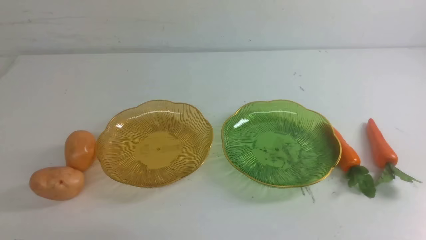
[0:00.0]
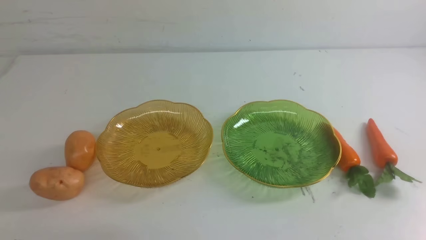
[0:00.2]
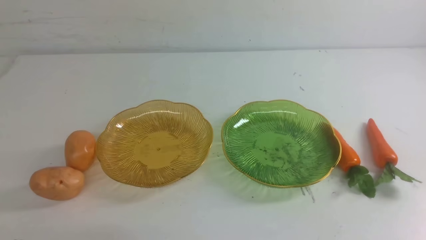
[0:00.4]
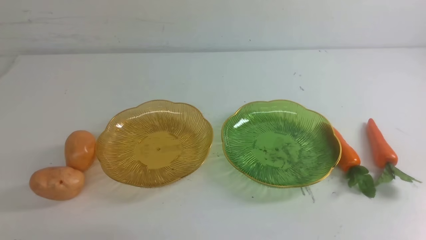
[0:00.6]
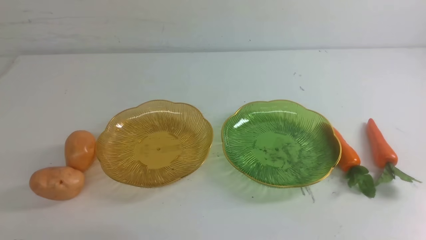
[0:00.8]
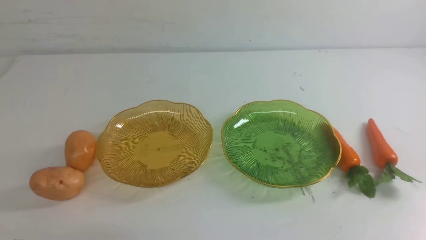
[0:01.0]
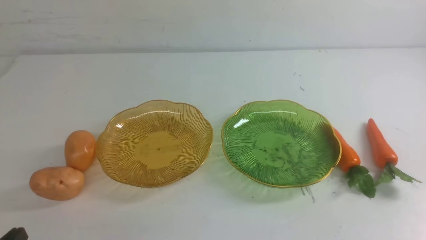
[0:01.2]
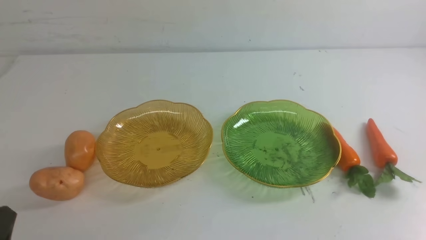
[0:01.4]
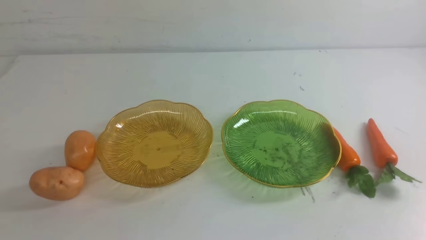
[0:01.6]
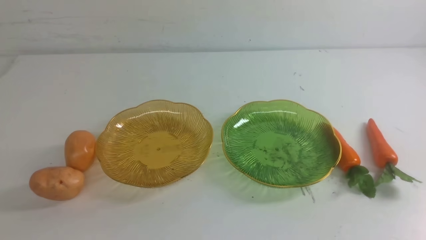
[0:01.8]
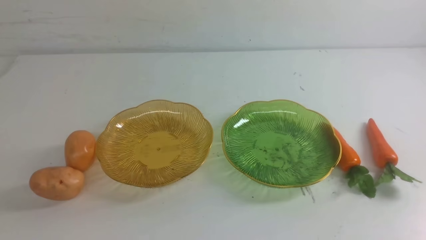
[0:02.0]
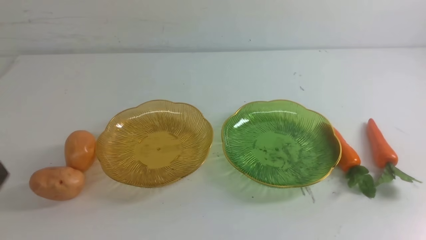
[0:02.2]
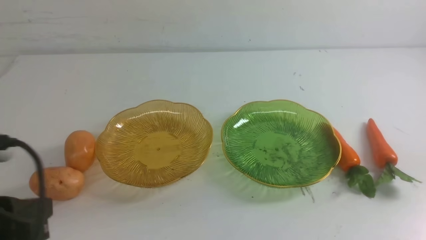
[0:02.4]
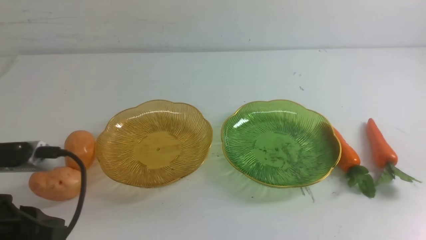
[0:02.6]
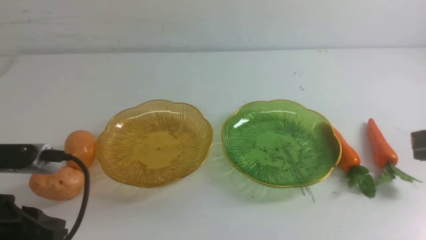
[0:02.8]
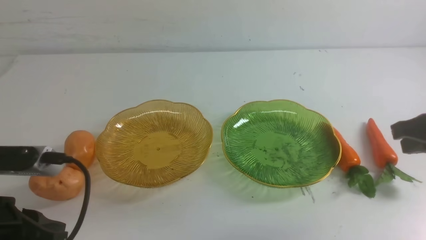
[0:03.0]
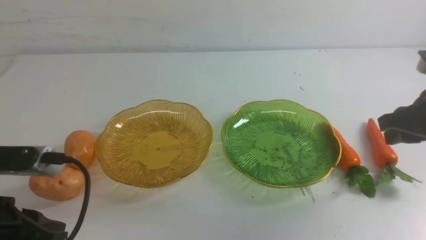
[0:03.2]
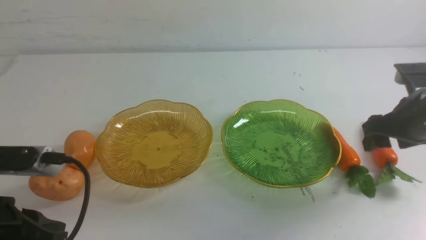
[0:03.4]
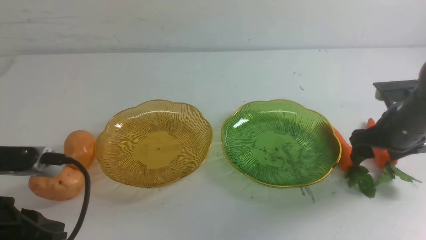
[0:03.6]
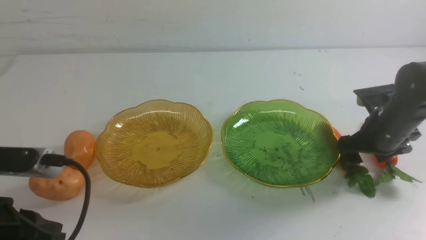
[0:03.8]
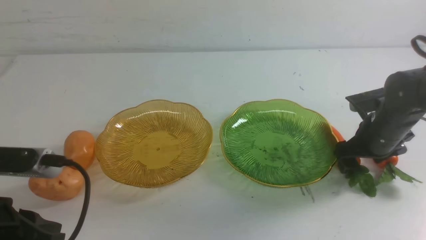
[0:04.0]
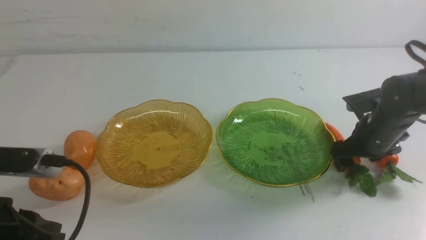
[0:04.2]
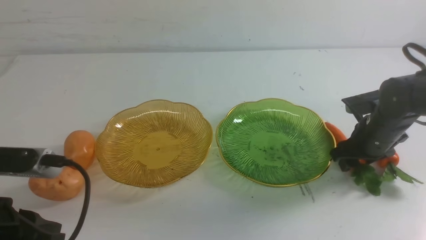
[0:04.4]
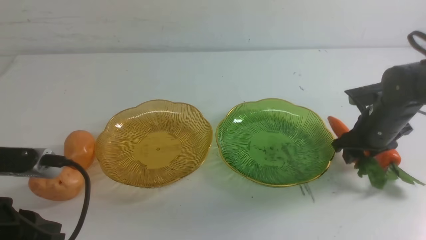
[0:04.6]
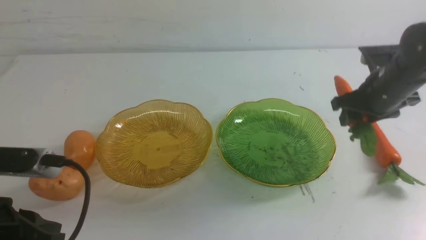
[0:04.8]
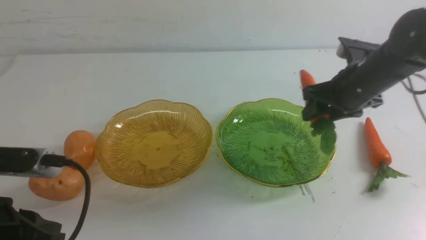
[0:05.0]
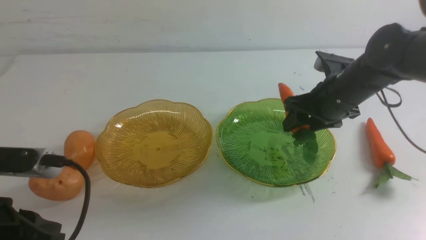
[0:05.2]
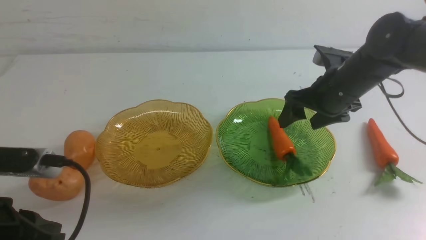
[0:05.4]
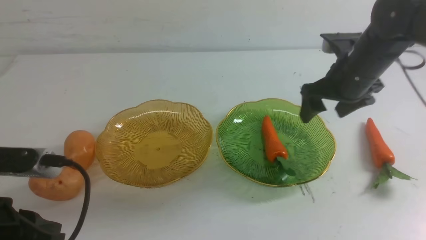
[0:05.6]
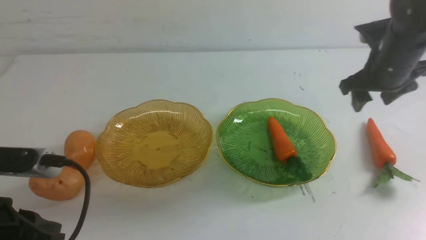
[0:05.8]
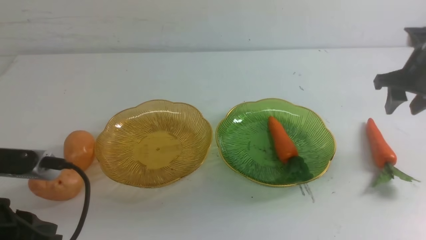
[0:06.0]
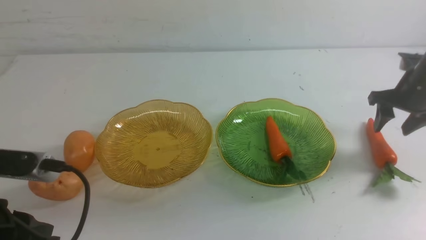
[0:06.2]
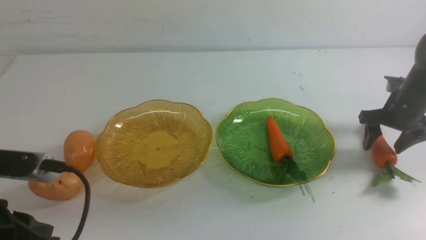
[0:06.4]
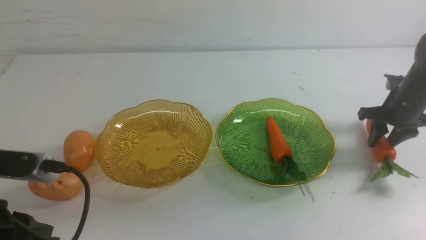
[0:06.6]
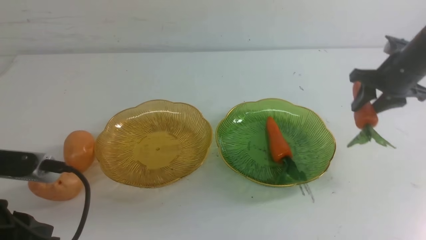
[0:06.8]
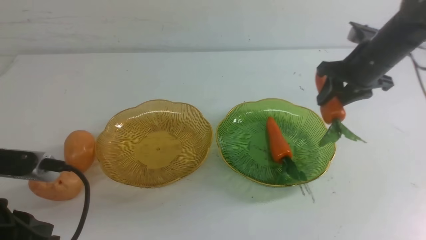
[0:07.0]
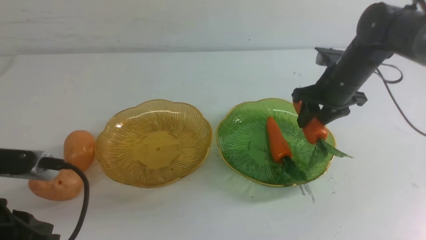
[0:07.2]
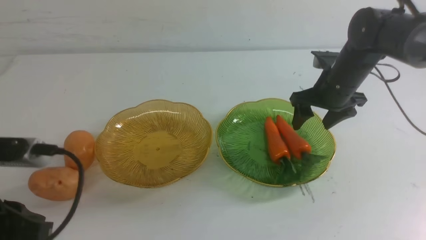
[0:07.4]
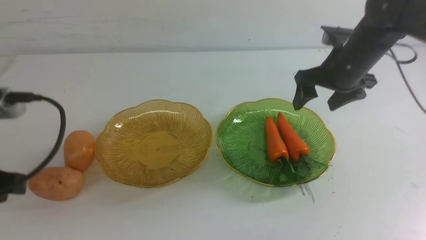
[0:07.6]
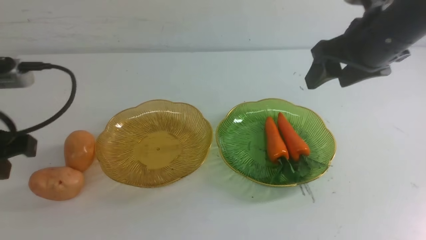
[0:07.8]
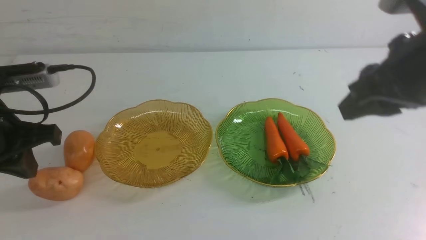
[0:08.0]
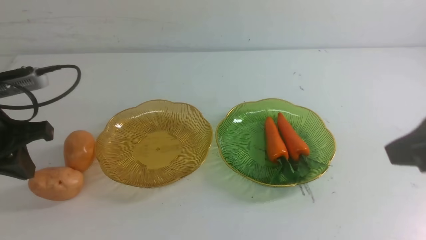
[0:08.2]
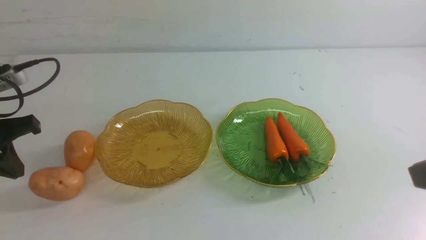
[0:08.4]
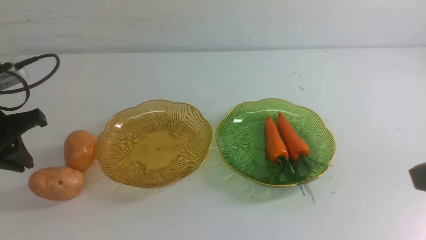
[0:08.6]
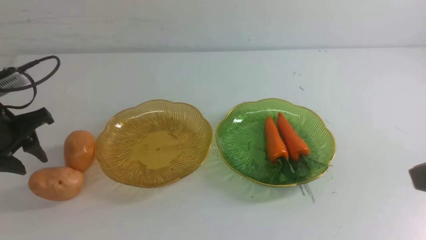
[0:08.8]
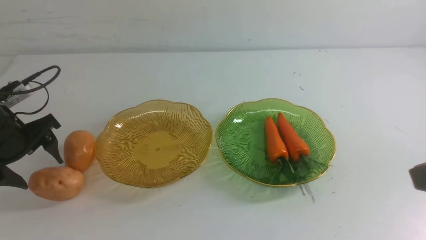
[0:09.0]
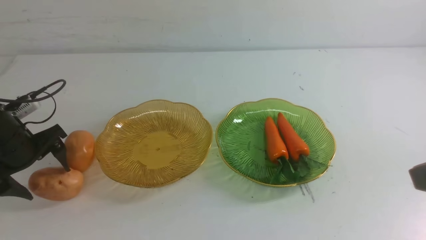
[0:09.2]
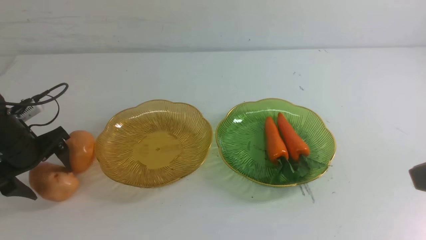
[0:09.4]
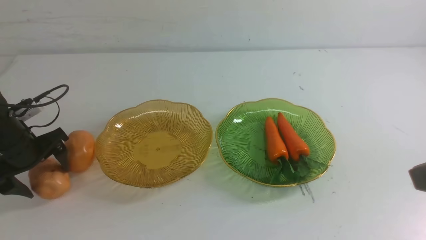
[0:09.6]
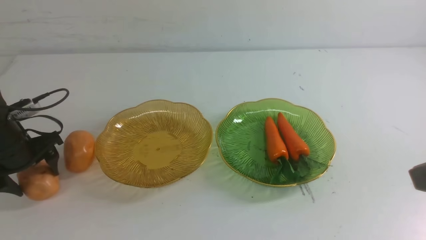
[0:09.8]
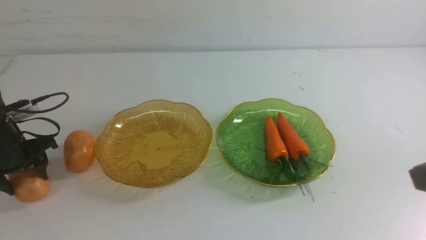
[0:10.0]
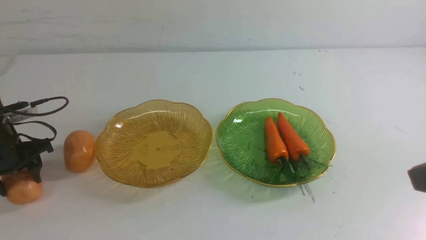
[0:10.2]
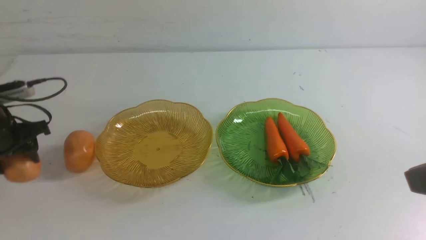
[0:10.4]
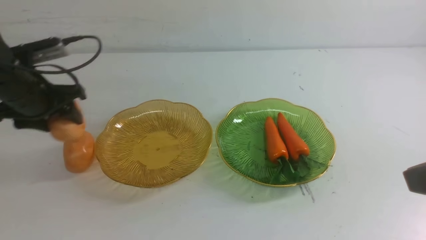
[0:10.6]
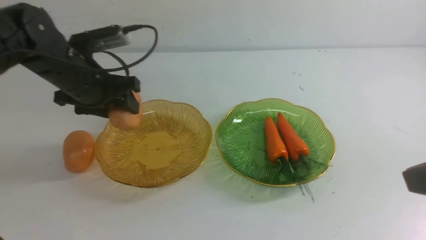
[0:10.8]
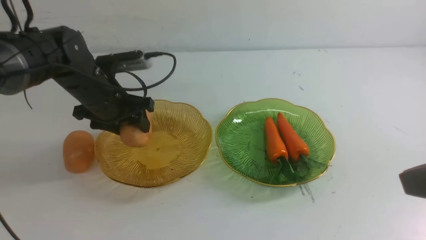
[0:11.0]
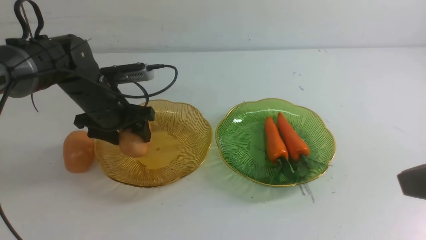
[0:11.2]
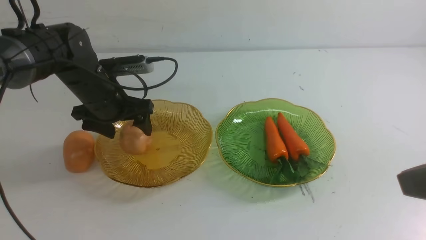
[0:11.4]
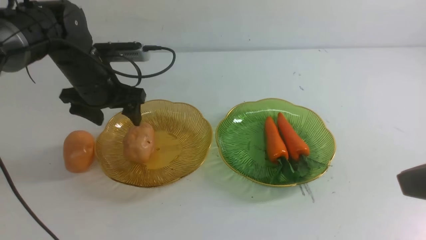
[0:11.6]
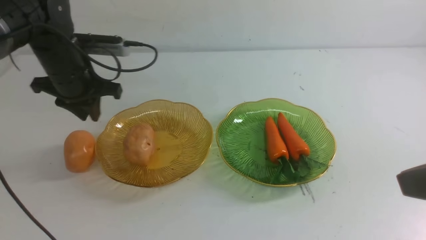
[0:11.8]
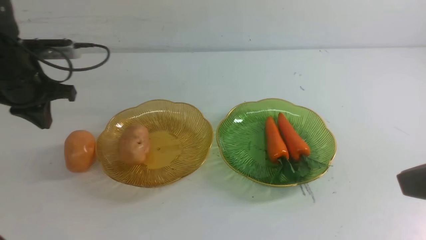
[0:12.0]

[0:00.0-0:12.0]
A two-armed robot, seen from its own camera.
Step, 0:00.0 to 0:07.2: use the right arm to grab a carrot and put it into the right plate.
0:01.6 to 0:03.0: The left gripper heads forward, covering about 10 cm. The right gripper is displaced forward and upward by about 20 cm.
0:03.0 to 0:04.4: The right gripper is displaced downward and forward by approximately 15 cm, and opens up.
0:04.4 to 0:06.0: The right gripper heads upward, covering about 10 cm.
0:06.0 to 0:07.6: The left gripper moves roughly 5 cm; the right gripper goes about 10 cm to the left.
0:07.6 to 0:09.0: The left gripper shifts approximately 20 cm forward, downward and to the left, and opens up. The right gripper is displaced backward by approximately 30 cm, and closes its fingers.
0:09.0 to 0:10.4: The left gripper changes place by roughly 5 cm.
0:10.4 to 0:12.0: The left gripper heads upward, forward and to the right, covering roughly 10 cm, and closes its fingers.

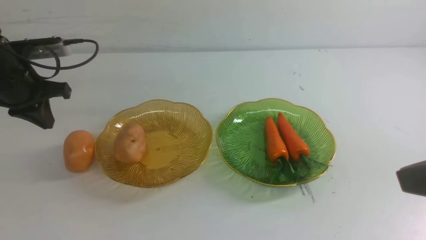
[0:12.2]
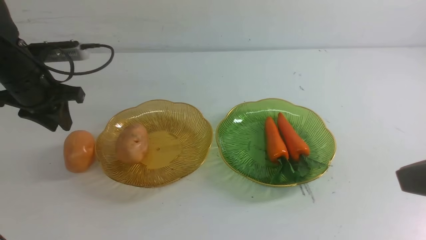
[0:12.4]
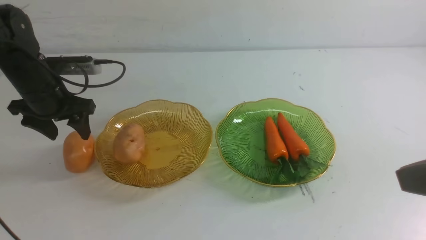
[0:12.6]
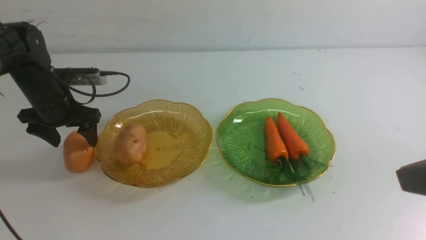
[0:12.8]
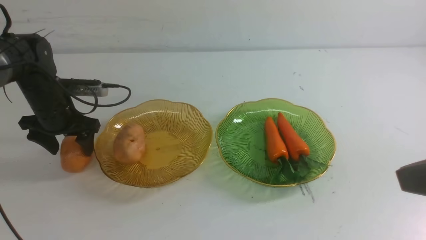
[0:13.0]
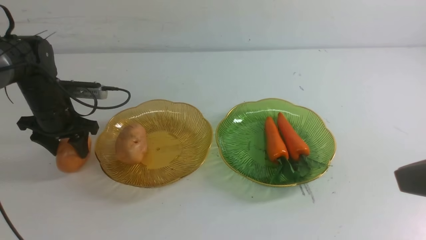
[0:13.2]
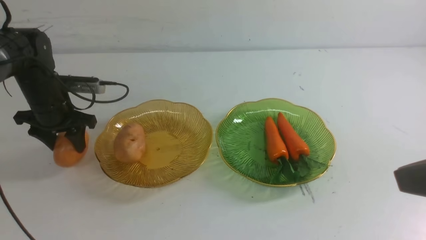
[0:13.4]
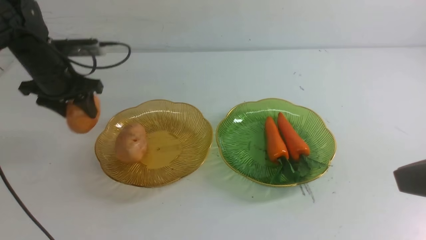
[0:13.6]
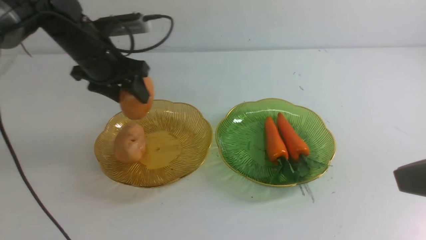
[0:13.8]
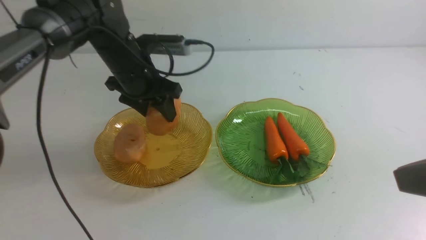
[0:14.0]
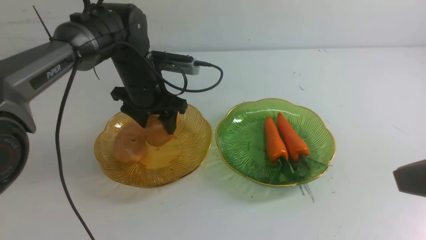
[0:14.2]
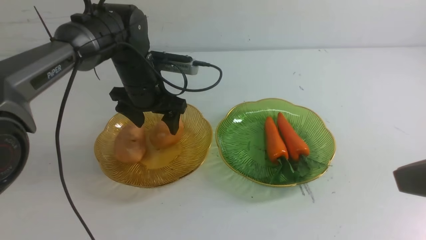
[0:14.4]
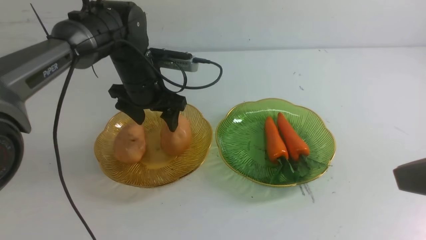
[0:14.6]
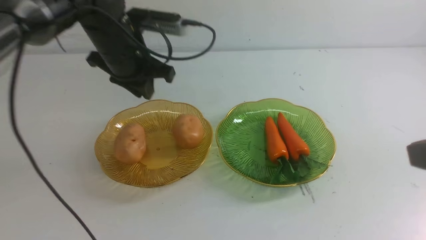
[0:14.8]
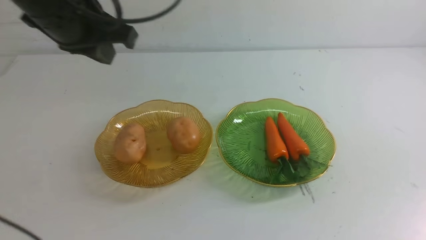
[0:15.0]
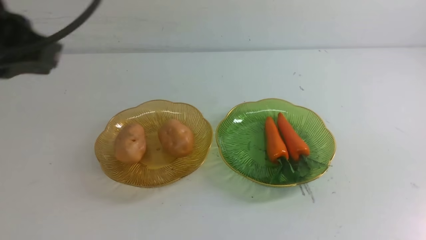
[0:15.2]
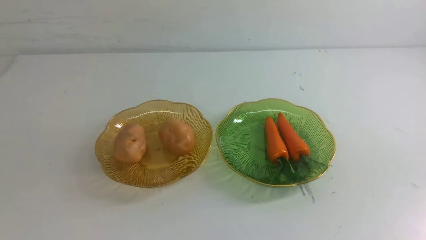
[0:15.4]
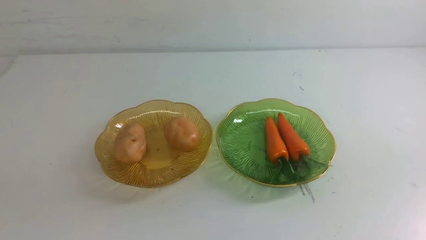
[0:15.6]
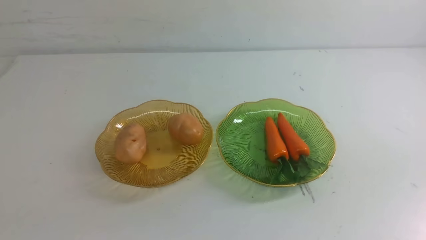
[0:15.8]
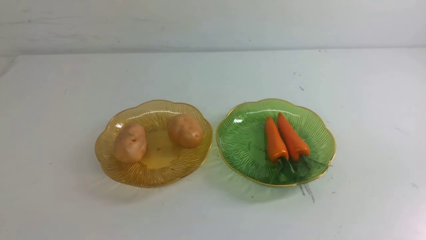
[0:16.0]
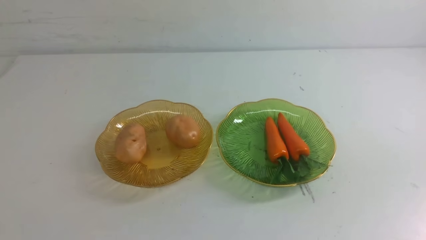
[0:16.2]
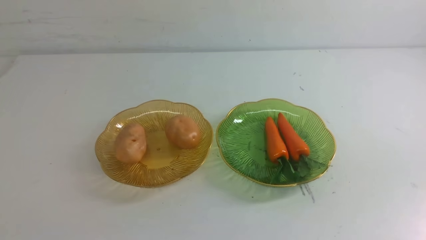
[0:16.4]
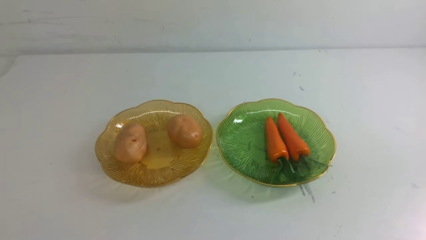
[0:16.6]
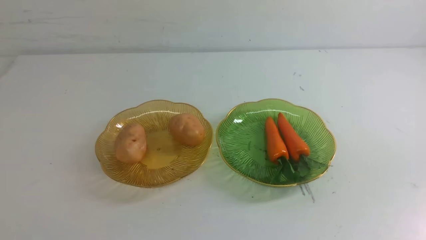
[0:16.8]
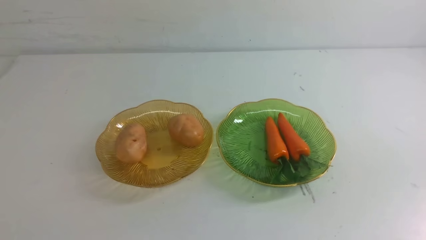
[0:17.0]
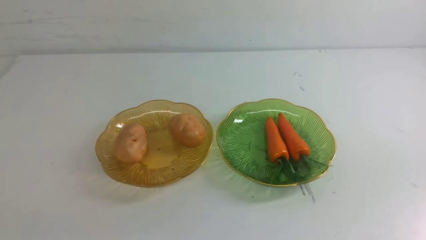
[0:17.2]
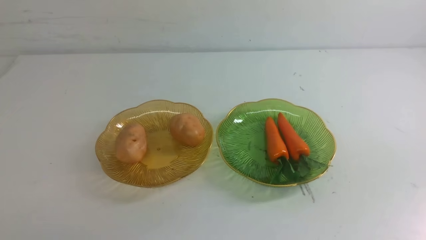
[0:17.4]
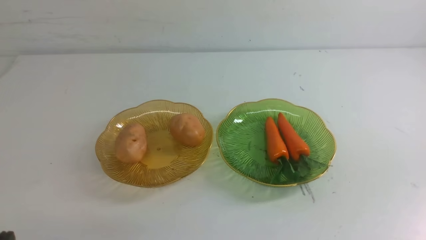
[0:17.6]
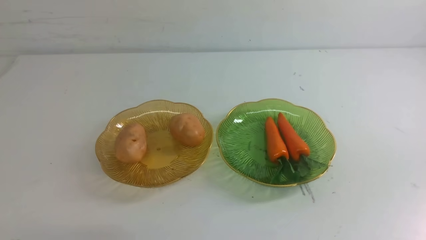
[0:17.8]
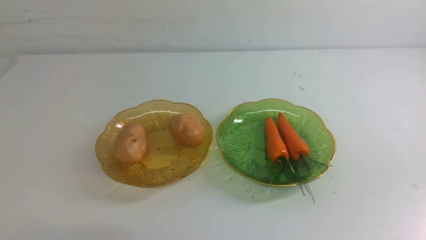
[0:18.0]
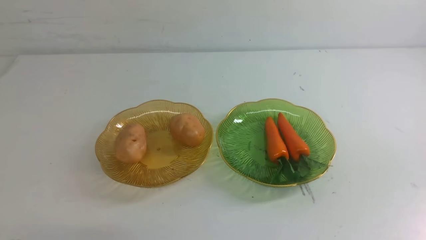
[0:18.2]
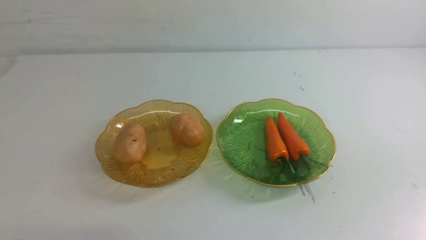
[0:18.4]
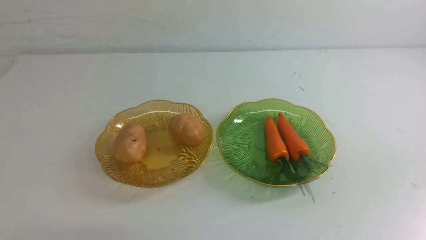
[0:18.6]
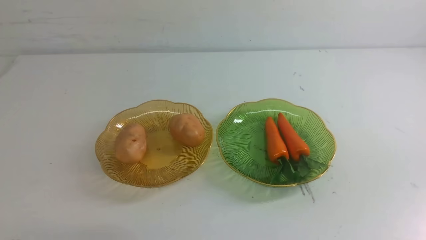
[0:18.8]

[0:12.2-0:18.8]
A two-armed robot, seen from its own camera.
Step, 0:12.2 to 0:14.2: Grab a potato with your left arm and put it on the left plate.
0:12.2 to 0:13.8: The left gripper goes approximately 10 cm to the right, and opens and closes again.
0:13.8 to 0:15.4: The right gripper goes roughly 5 cm backward; the left gripper moves backward and upward, some 35 cm, and closes its fingers.
